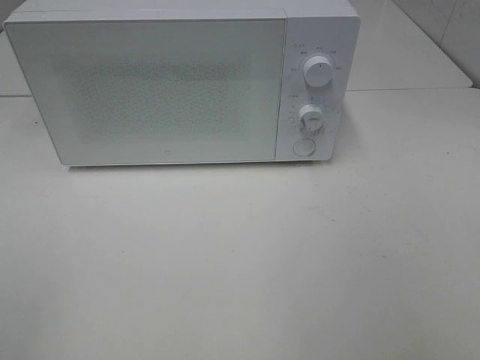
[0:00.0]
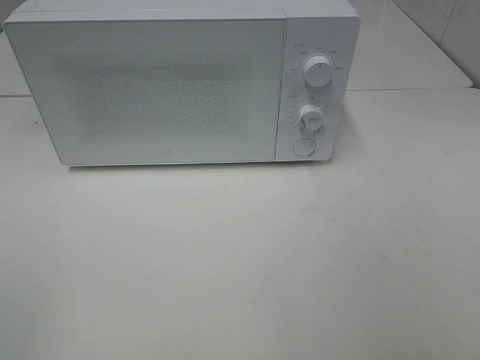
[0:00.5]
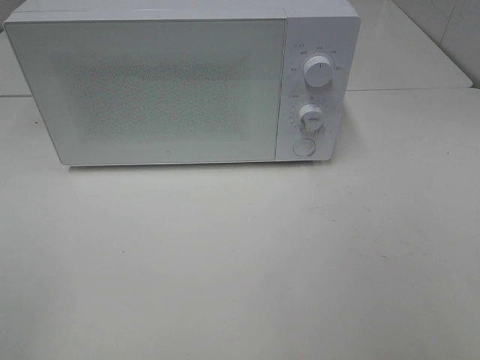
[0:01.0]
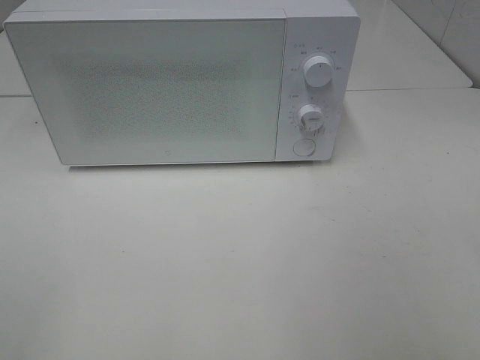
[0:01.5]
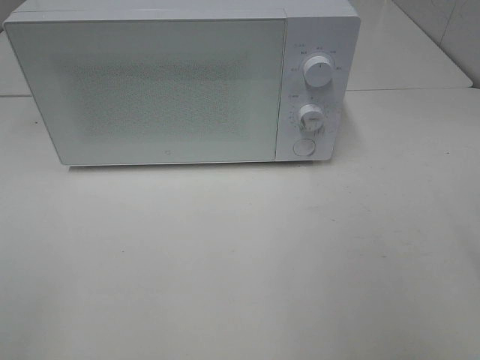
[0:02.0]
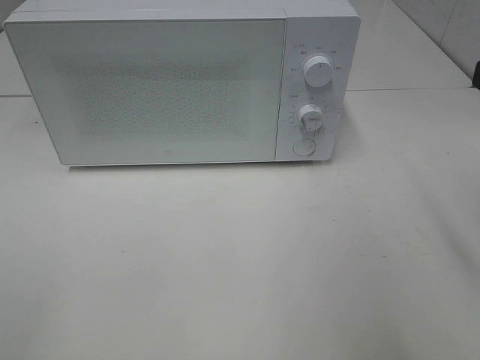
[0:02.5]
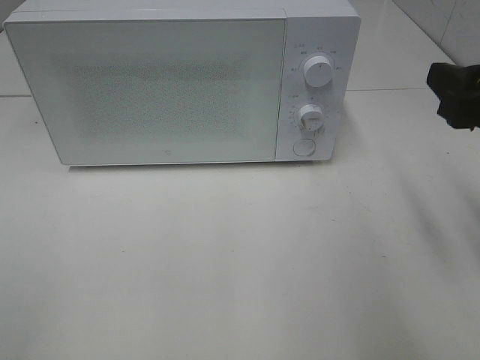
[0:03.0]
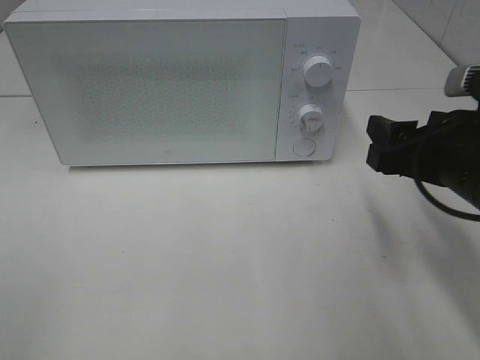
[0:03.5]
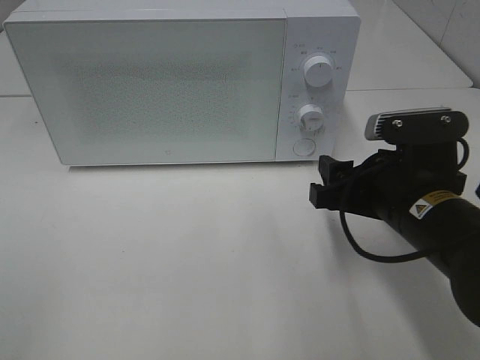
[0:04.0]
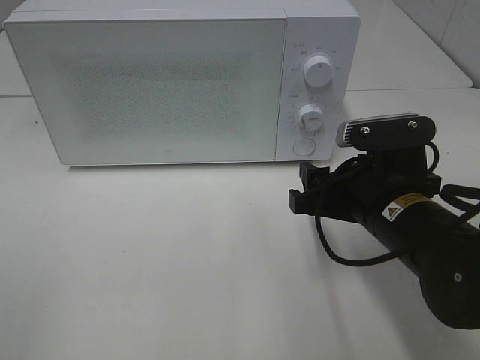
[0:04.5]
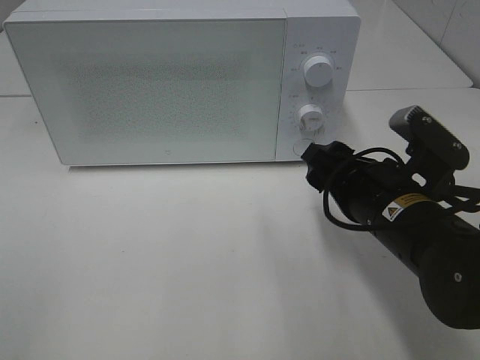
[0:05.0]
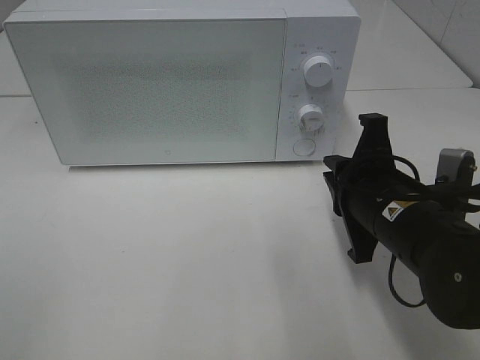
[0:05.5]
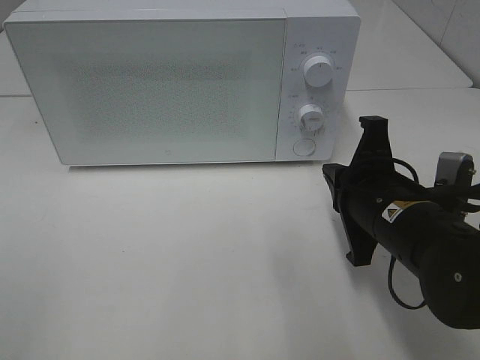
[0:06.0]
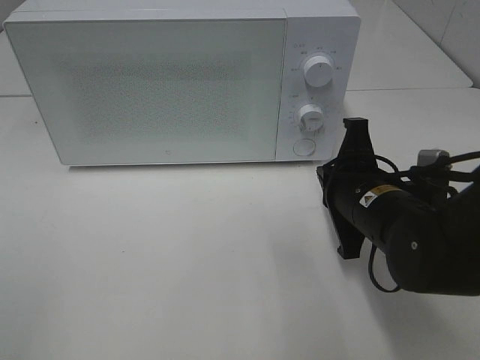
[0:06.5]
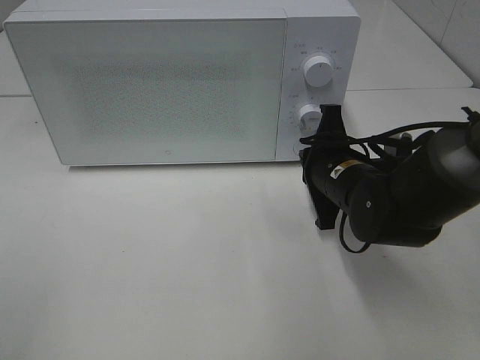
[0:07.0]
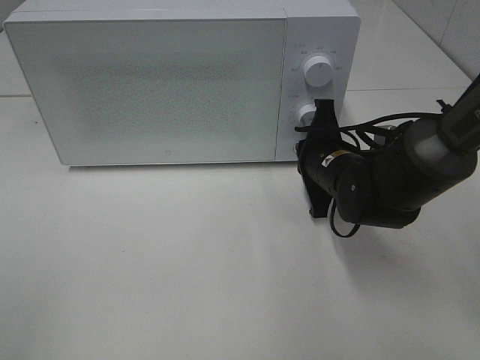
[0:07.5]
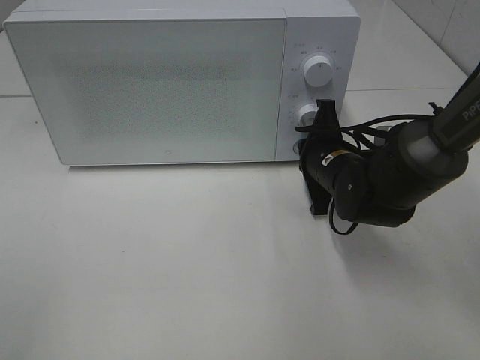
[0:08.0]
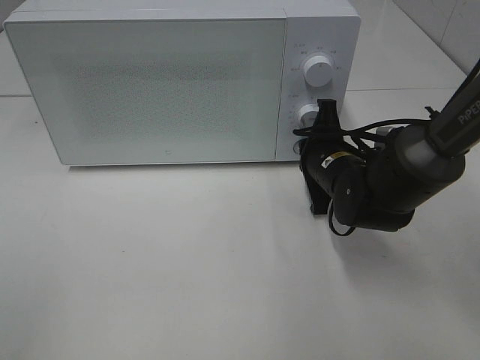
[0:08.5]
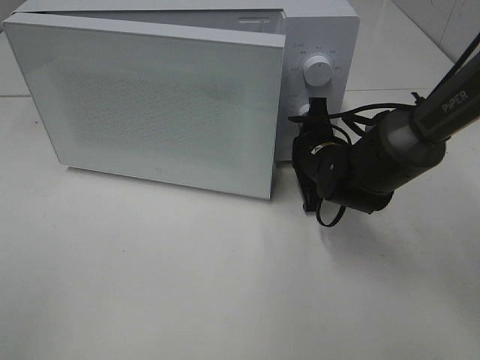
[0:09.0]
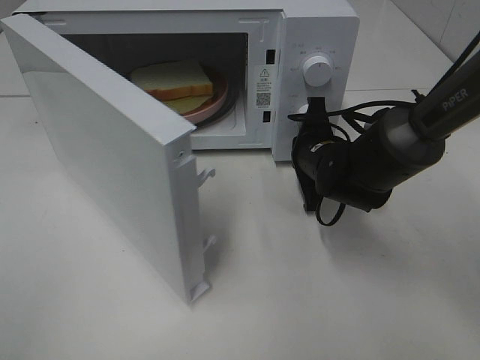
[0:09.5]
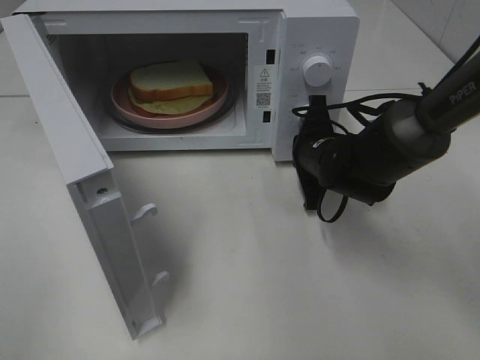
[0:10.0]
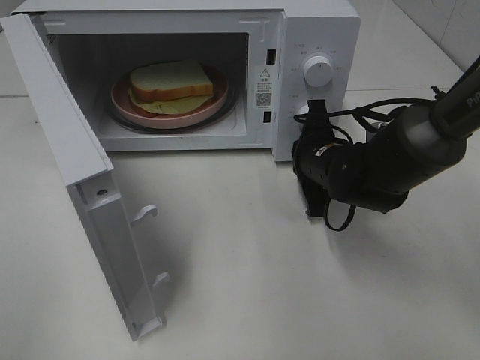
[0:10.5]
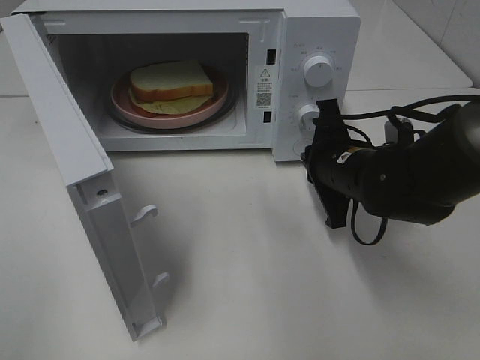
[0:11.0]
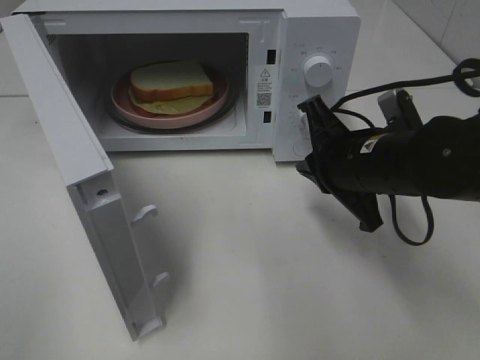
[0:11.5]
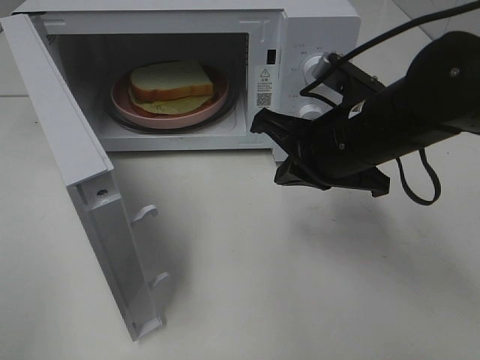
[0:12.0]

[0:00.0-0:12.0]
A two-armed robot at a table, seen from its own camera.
Task of the whole recording: Heat Sandwich.
Step, 0:00.0 to 0:10.5: Right hand: press the switch.
0:02.0 to 0:04.0: The right gripper is displaced downward, forward and to the left by approximately 20 cm.
0:04.0 to 0:06.0: The right gripper closes its fingers.
0:06.0 to 0:08.0: The right gripper travels forward and downward by roughly 15 cm.
0:10.0 to 0:12.0: The right gripper heads upward and backward, covering some 15 cm.

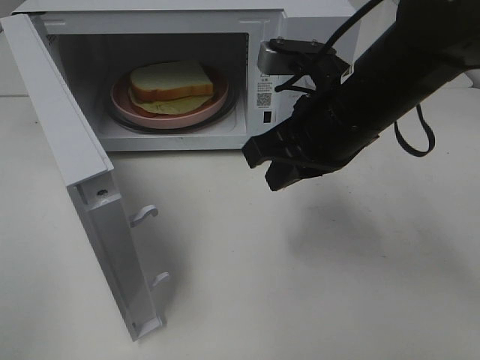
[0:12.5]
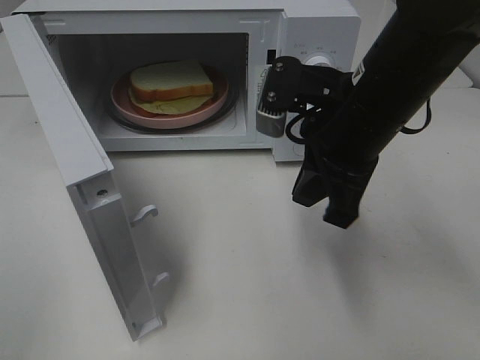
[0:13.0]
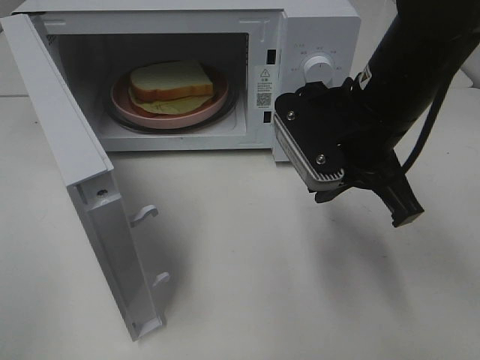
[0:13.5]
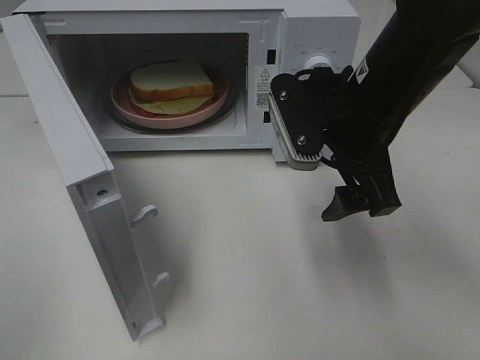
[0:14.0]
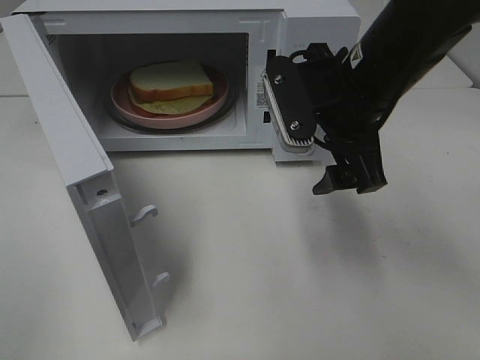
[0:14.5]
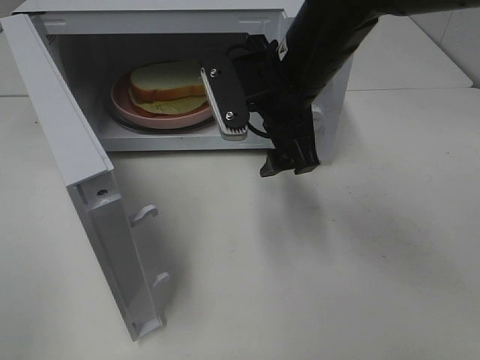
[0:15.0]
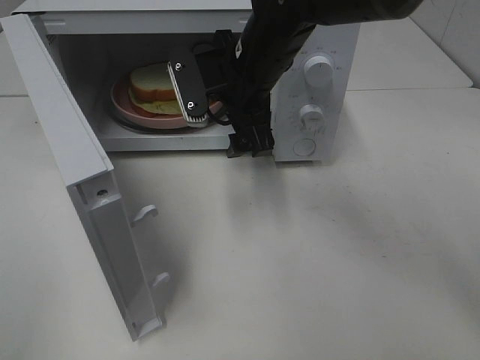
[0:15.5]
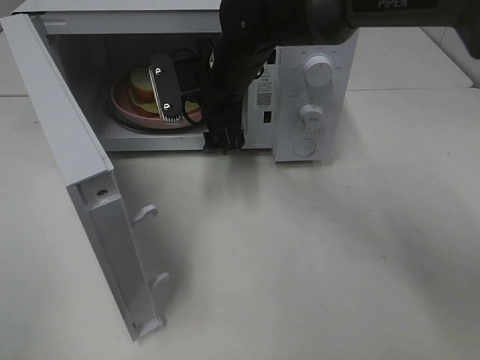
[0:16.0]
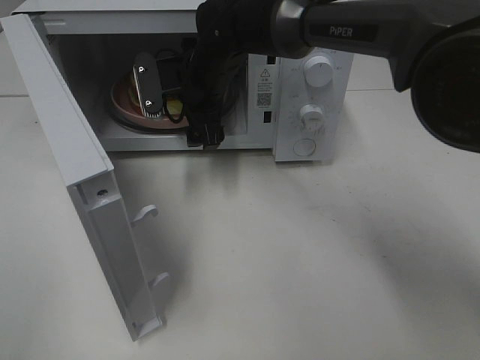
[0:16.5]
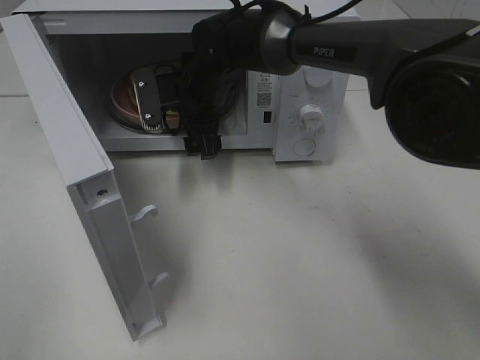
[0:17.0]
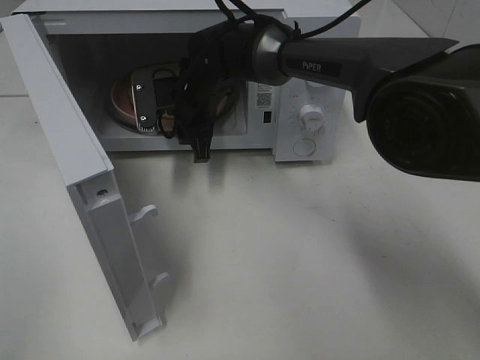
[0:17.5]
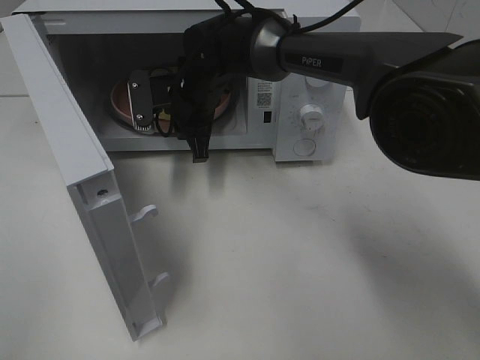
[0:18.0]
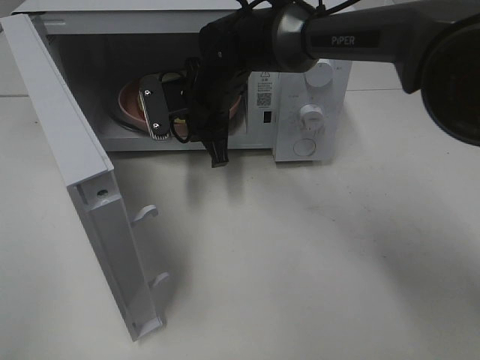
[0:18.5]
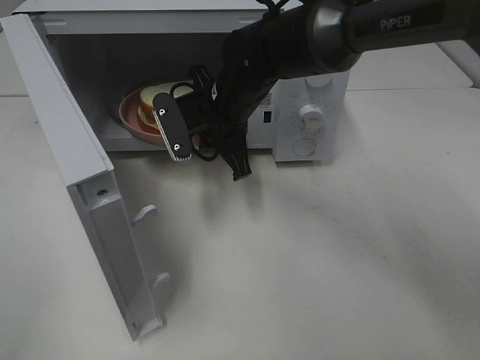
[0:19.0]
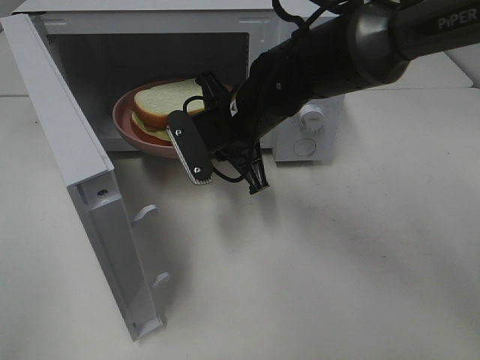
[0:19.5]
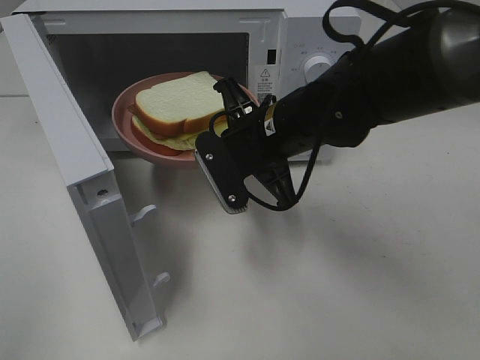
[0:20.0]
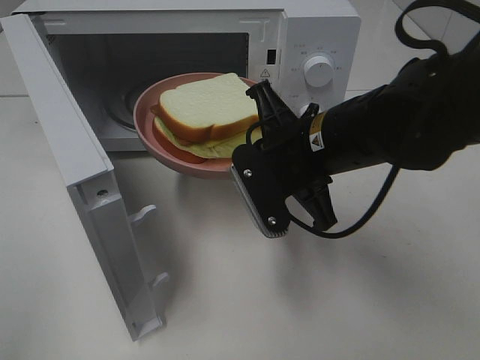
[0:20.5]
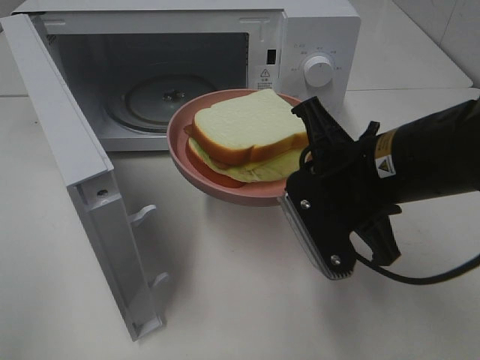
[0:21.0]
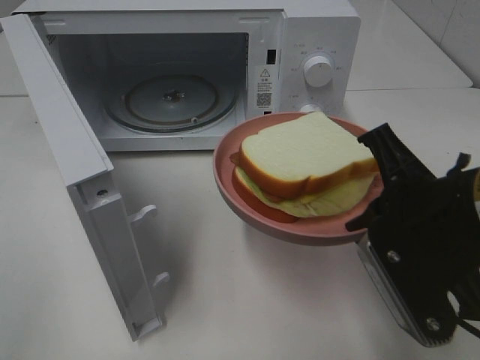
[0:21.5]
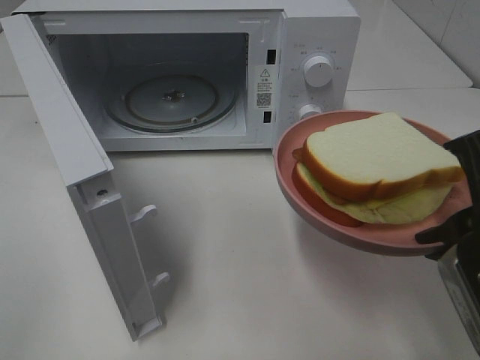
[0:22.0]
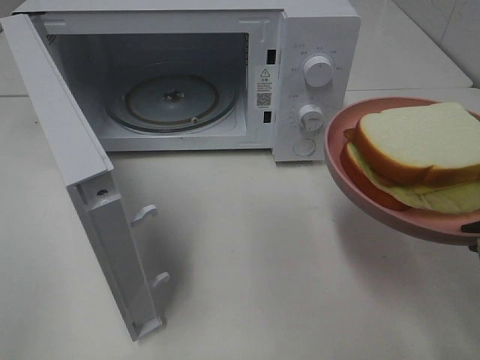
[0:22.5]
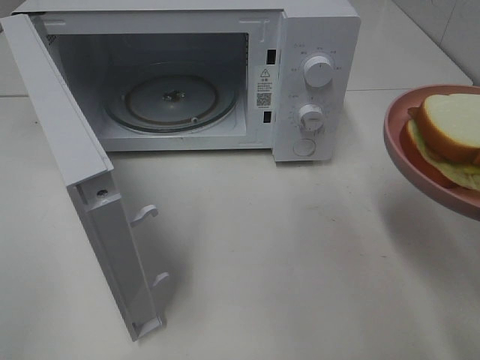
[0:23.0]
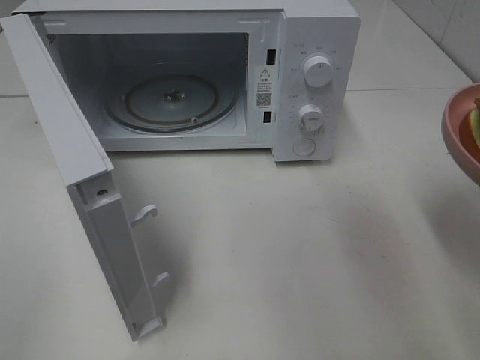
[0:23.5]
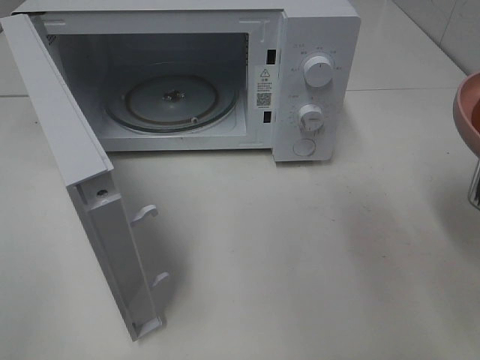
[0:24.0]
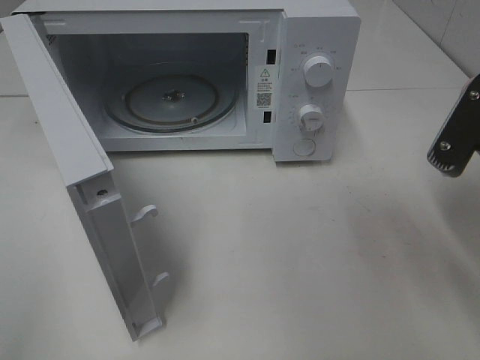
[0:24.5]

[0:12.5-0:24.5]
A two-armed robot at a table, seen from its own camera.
Task of the whole recording: Heat Sandwich.
Step, 0:12.5 to 0:17.5: Right hand: grab the plate with the sandwich.
0:12.5 to 0:14.5: The right gripper opens its fingers.
0:14.5 to 0:16.5: The right gripper heads to the left, forward and downward, covering some 20 cm.
0:16.5 to 0:18.5: The right gripper closes its fingers.
0:18.5 to 0:20.5: The right gripper is displaced backward and to the right by some 20 cm.
0:20.5 to 0:22.5: The right gripper moves backward and to the right, roughly 20 cm.
0:22.5 to 0:24.5: The right gripper travels forward by about 5 cm.

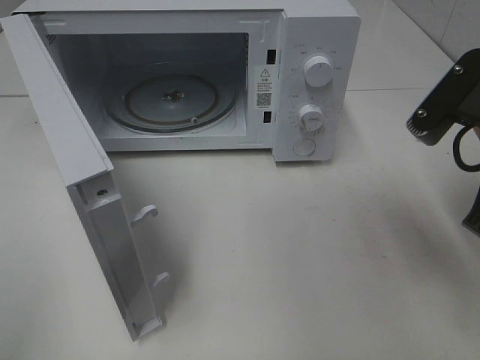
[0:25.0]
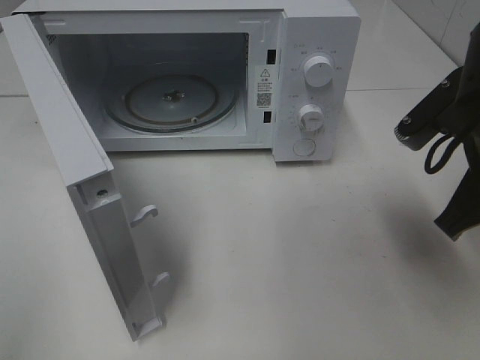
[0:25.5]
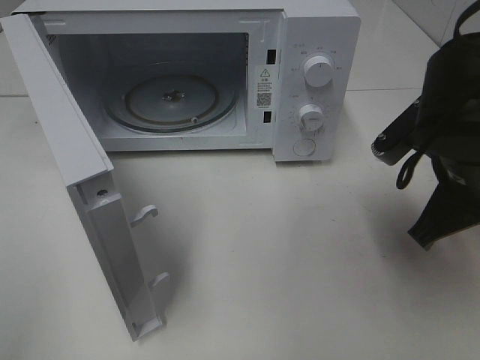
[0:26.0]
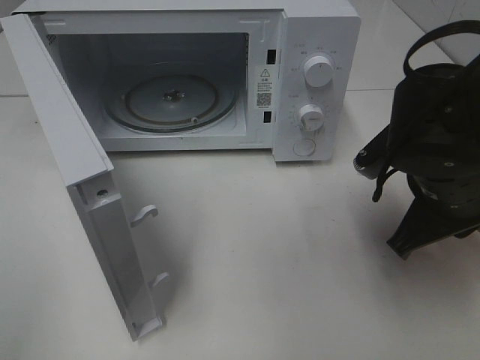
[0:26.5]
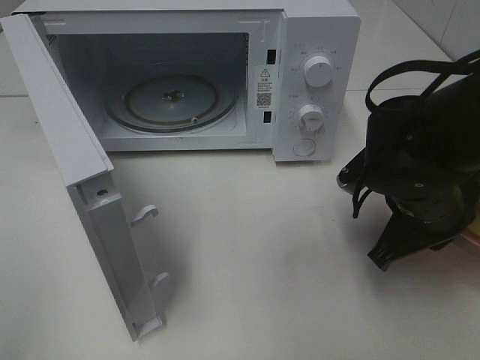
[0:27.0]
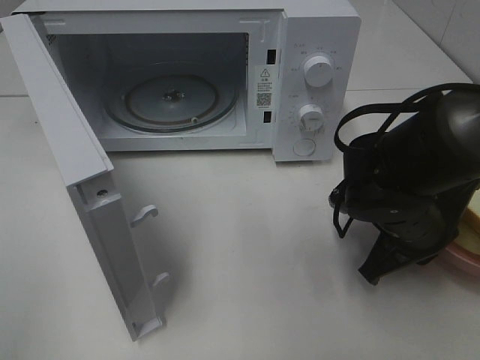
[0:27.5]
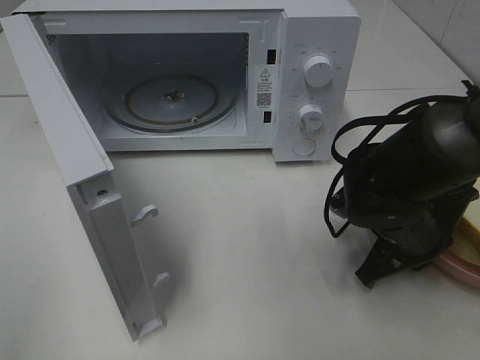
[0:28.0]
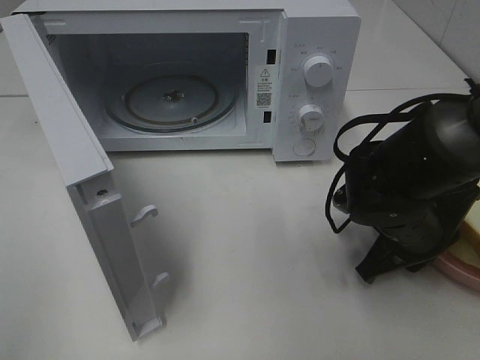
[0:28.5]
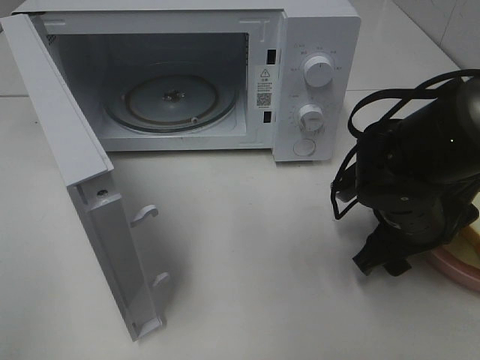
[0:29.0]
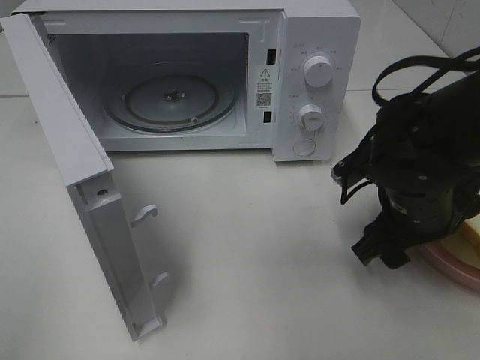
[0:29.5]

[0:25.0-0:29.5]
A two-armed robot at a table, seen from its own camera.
Task of the whole recording: Heat Sandwich.
0:25.0 to 0:27.0: The right gripper shifts about 10 cm downward.
0:27.0 to 0:29.5: The right gripper opens its fingers.
